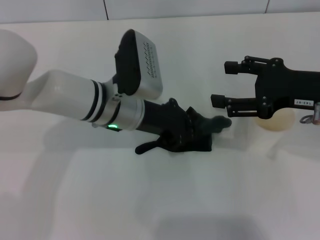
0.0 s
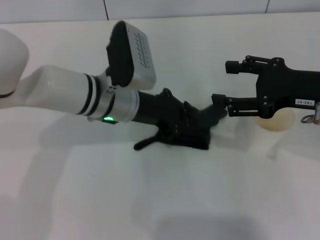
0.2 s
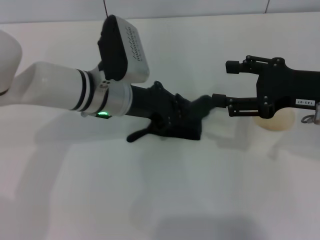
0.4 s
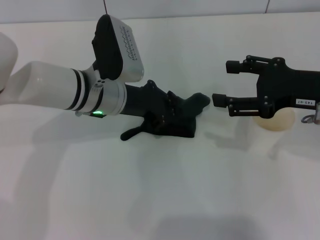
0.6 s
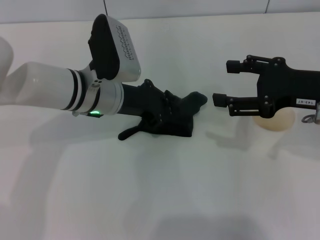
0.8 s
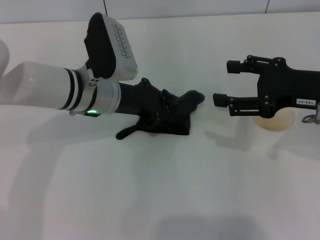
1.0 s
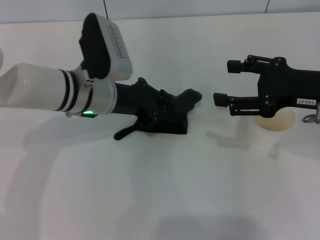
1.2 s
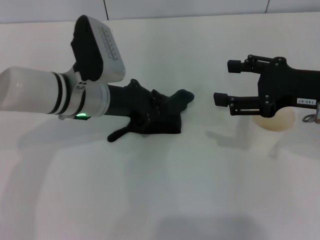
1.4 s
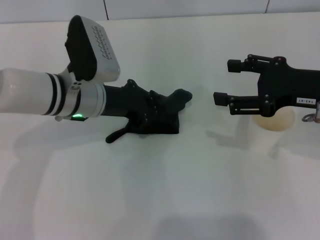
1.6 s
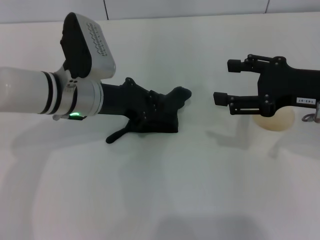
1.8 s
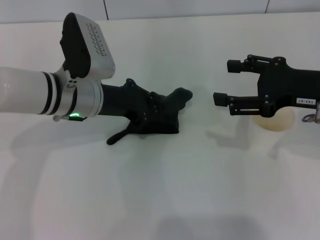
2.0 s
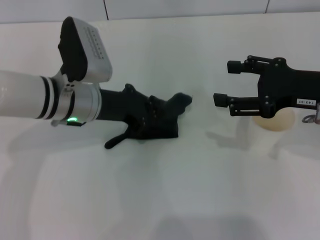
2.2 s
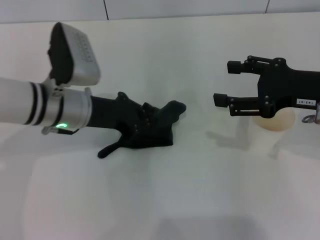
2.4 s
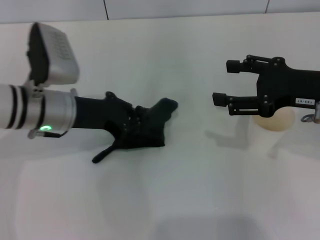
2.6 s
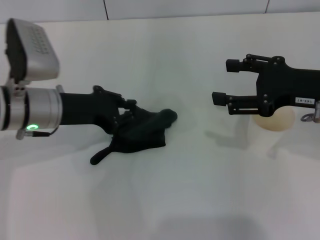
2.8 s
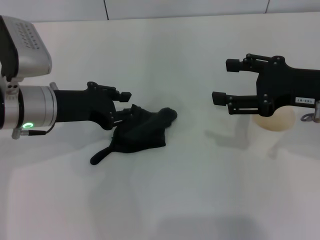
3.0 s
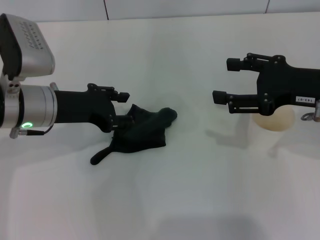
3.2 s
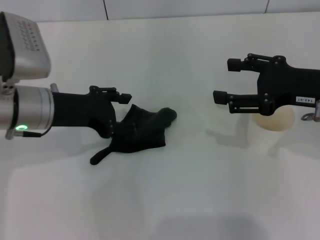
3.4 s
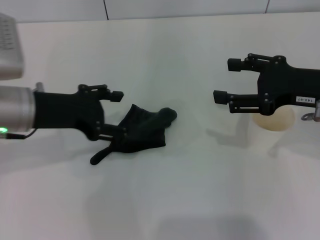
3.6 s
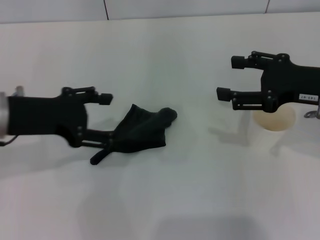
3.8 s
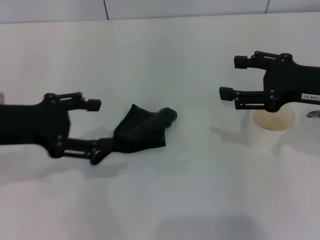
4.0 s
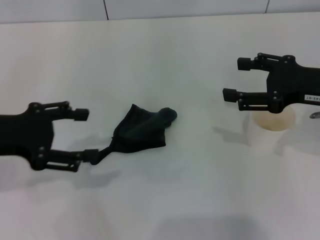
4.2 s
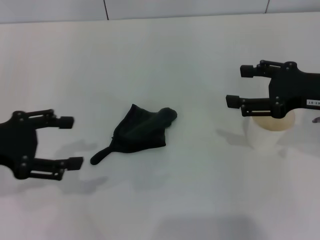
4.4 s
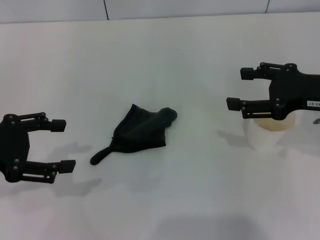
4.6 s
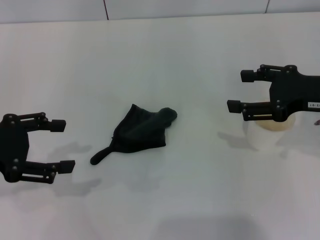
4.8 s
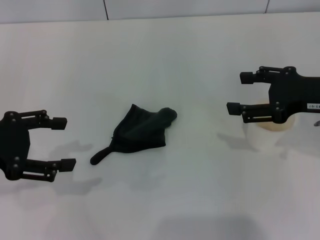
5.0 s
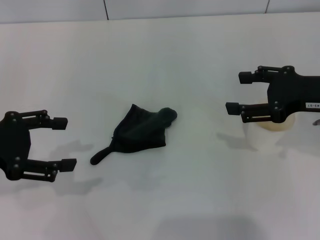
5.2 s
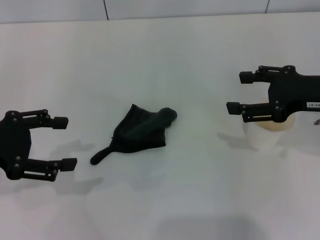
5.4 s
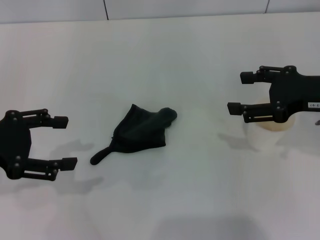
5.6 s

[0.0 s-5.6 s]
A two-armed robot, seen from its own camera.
Step, 0.0 to 2.4 s: Wipe the stains off the table with the left gripper.
Step, 2.6 to 3.6 s: Place the rag on the table with the left gripper.
0.0 to 1.4 s: The left gripper changes place by roughly 5 cm.
1.4 to 2.8 s: The left gripper heads to the left, covering about 5 cm.
2.8 to 4.2 s: The left gripper shifts roughly 10 cm to the left, backward and upward, and opens up.
4.2 to 5.6 s: The grippers move only a little.

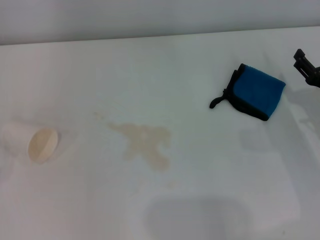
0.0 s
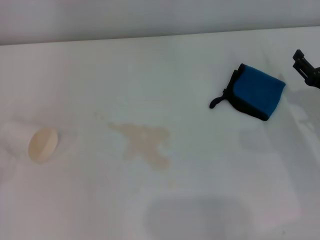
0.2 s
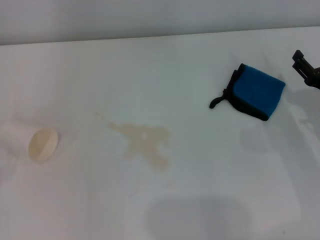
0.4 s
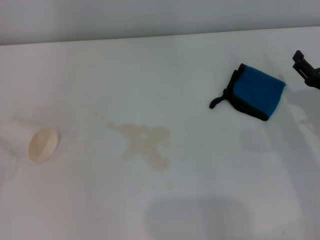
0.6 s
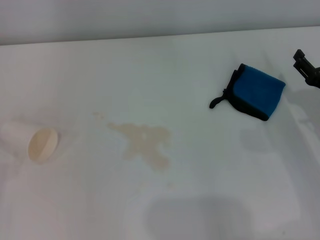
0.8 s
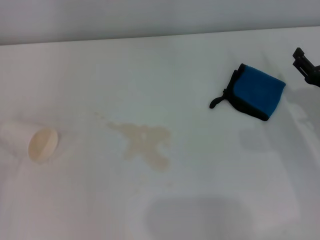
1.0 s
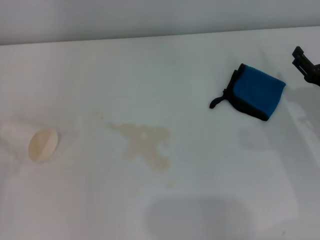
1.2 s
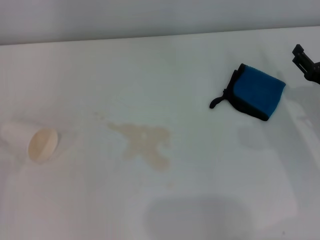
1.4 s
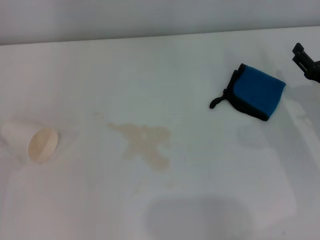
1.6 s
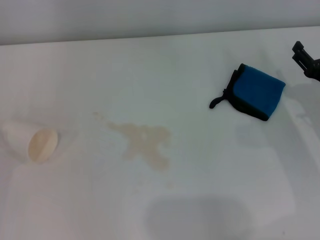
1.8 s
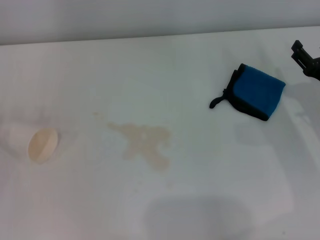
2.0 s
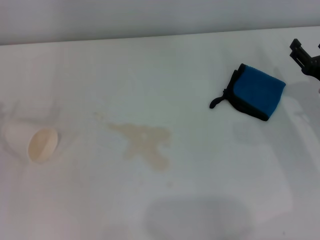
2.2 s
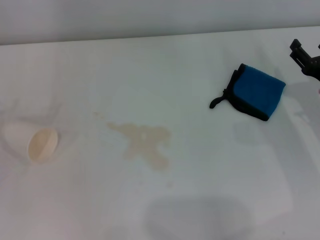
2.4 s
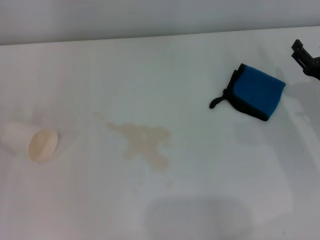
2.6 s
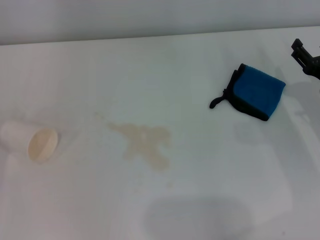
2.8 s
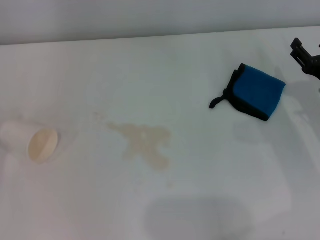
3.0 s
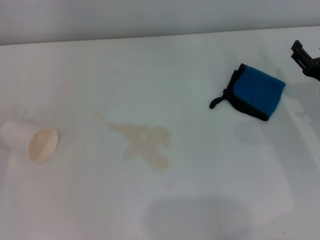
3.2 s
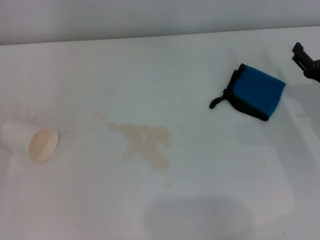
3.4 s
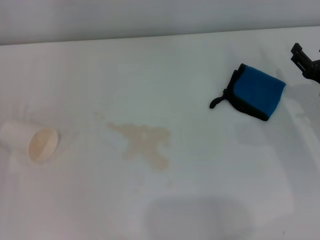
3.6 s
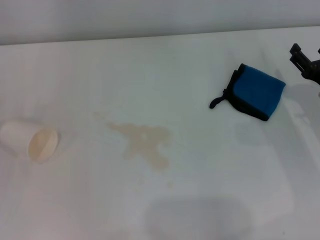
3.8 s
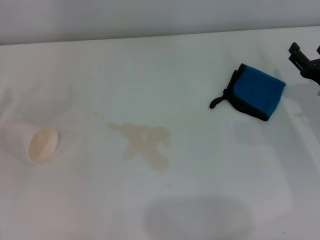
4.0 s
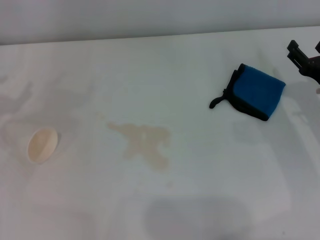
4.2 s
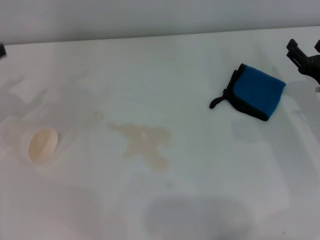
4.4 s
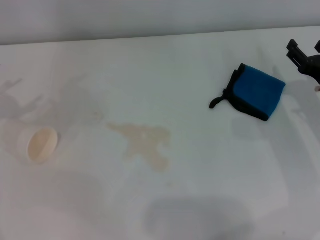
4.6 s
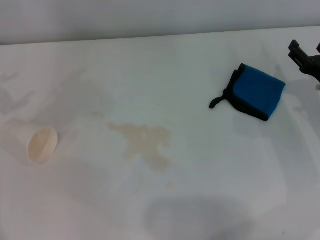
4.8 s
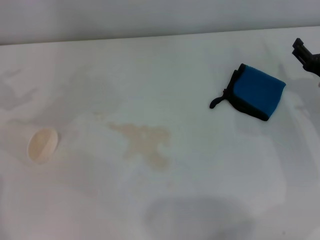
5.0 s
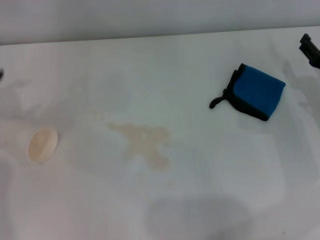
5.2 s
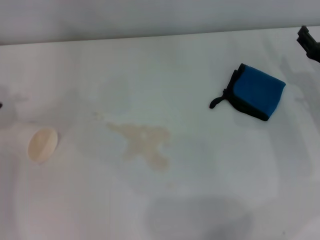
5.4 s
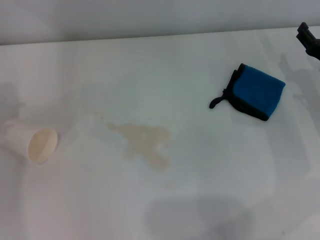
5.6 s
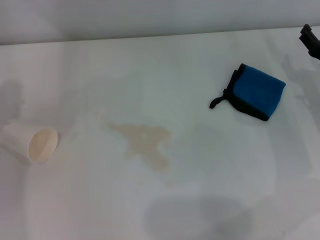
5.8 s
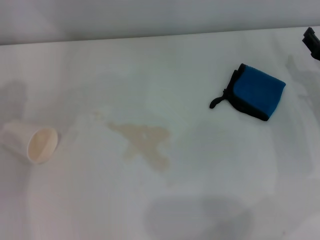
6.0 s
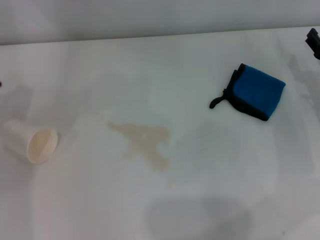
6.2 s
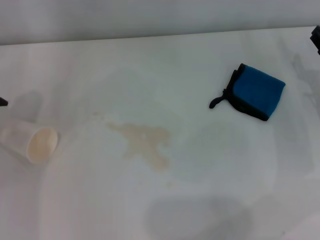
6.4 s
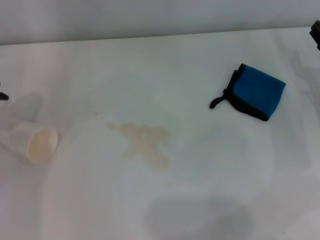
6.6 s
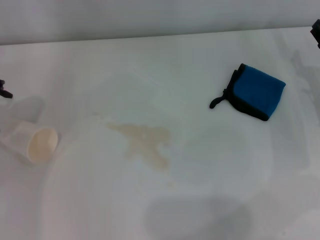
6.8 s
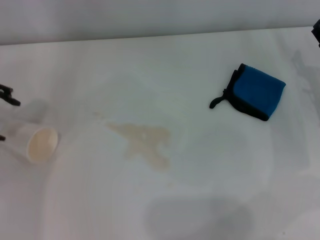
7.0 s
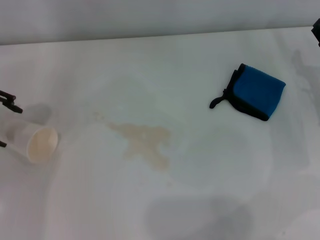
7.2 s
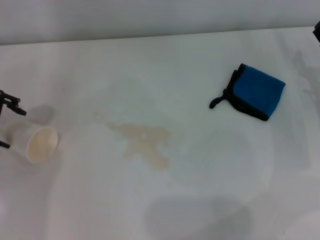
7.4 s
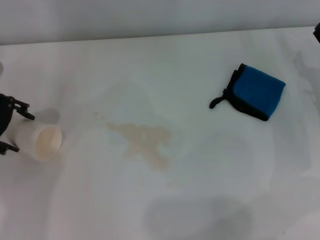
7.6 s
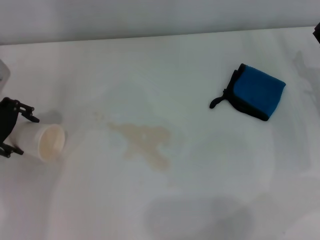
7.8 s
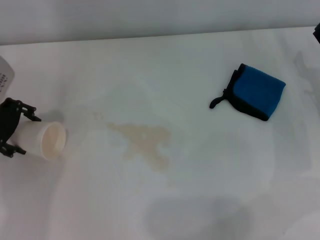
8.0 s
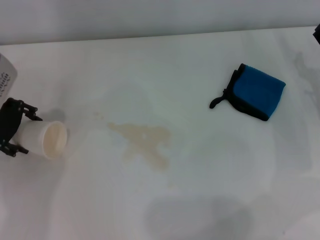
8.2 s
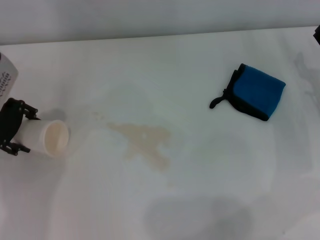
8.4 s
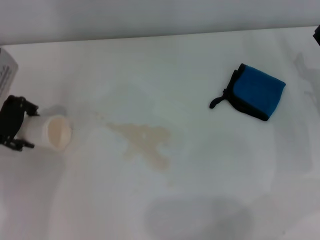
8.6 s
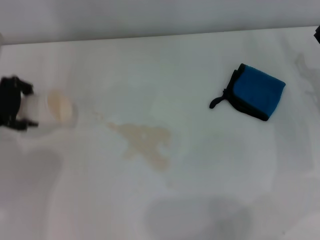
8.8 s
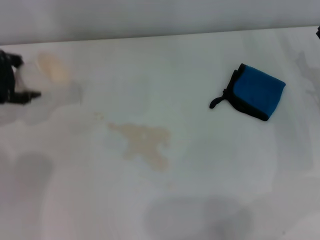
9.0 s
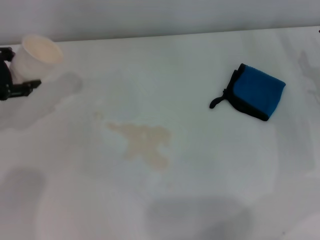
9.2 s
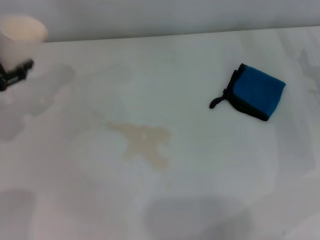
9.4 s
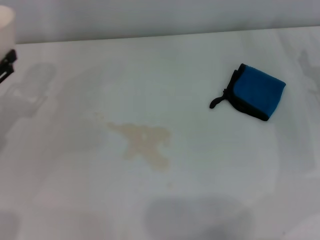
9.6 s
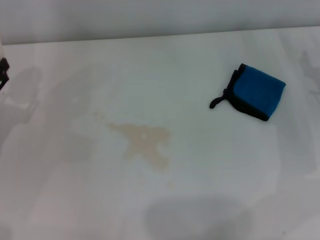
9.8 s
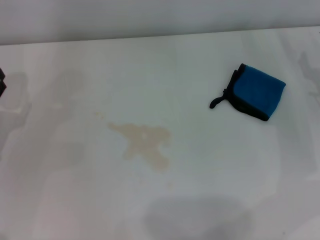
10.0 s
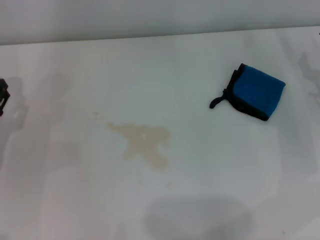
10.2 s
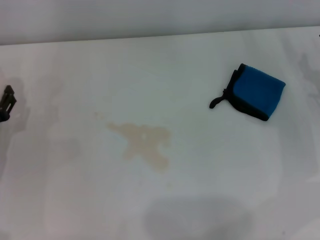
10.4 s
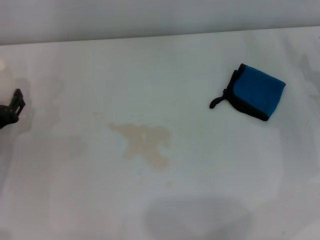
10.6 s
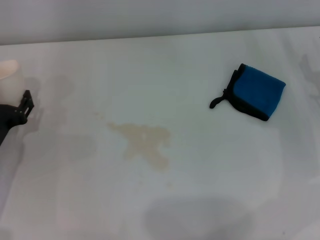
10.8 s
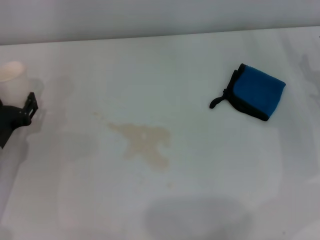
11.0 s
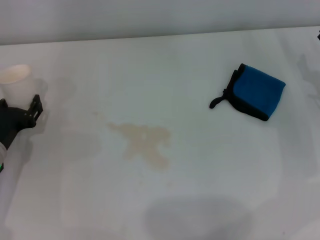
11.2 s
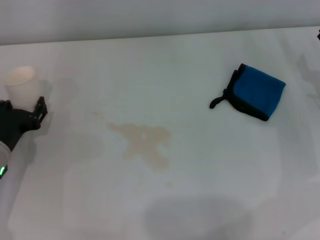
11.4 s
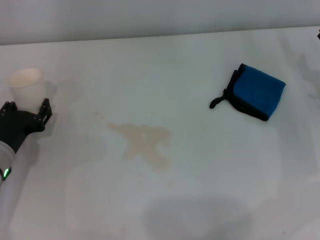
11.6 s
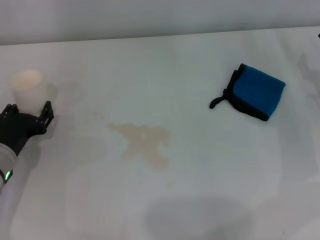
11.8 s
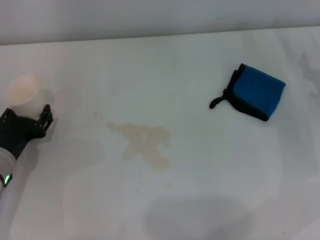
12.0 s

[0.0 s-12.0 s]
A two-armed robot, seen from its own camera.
Step, 0.0 to 8.4 s: Grasp the paper cup with the left gripper.
6.0 to 7.6 s: The left gripper shifts about 10 cm downward and to the right.
7.6 to 9.0 s: The left gripper closes up.
9.0 to 10.4 s: The left gripper moves downward and backward, about 20 cm.
10.4 to 12.0 s: There are only small adjustments of the grippers.

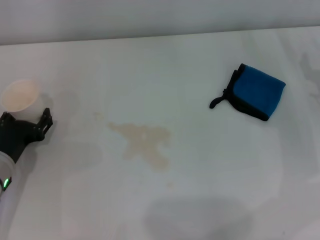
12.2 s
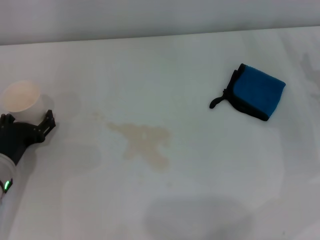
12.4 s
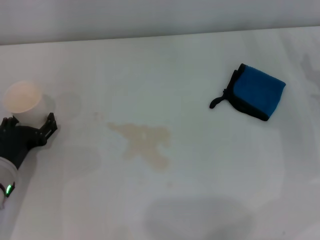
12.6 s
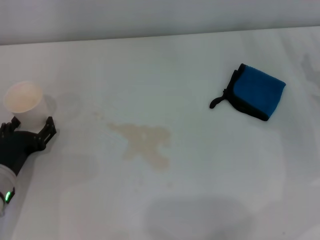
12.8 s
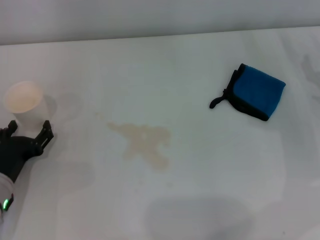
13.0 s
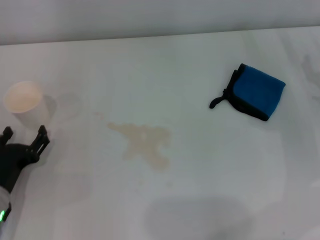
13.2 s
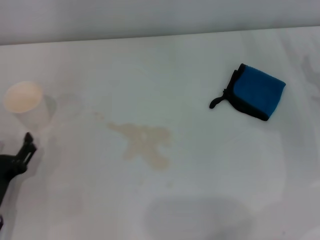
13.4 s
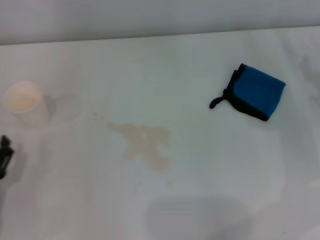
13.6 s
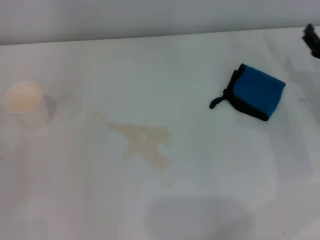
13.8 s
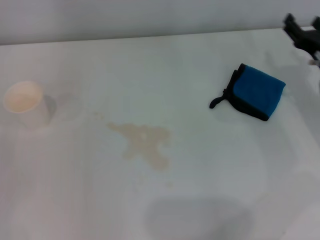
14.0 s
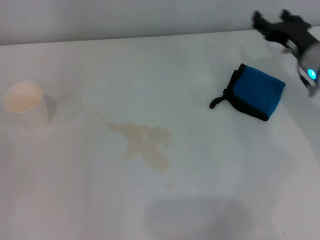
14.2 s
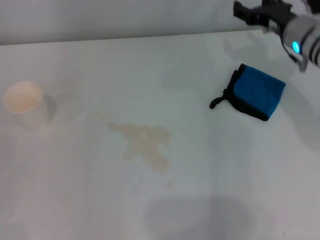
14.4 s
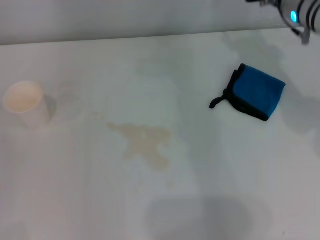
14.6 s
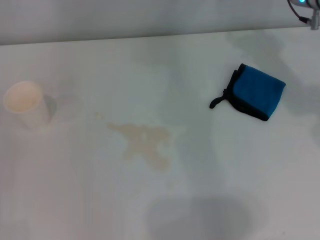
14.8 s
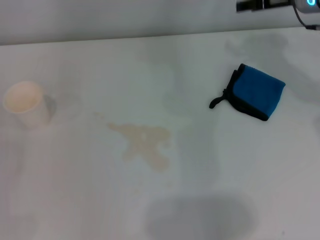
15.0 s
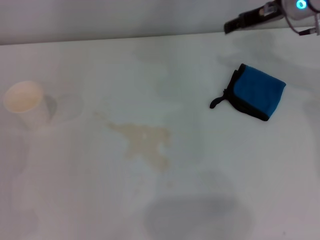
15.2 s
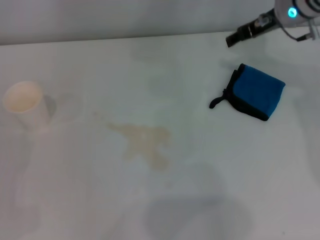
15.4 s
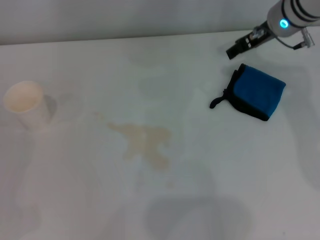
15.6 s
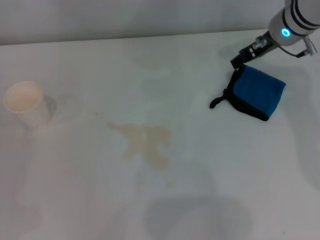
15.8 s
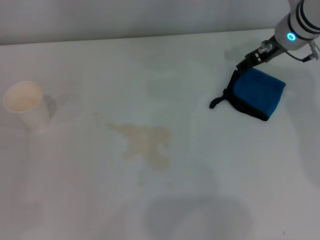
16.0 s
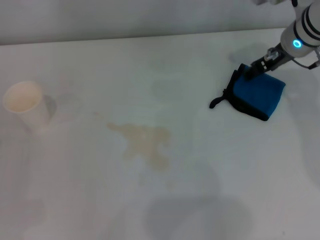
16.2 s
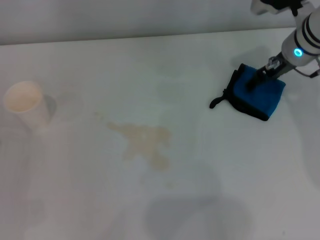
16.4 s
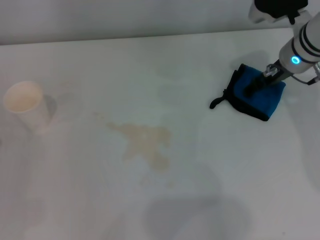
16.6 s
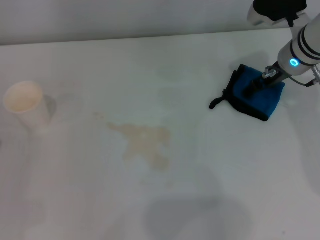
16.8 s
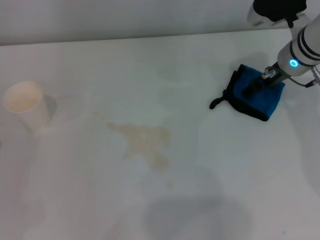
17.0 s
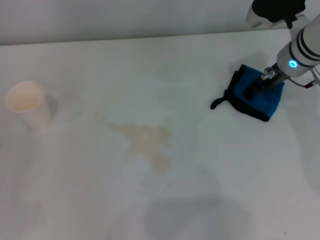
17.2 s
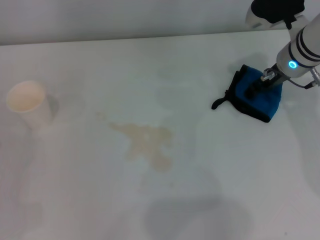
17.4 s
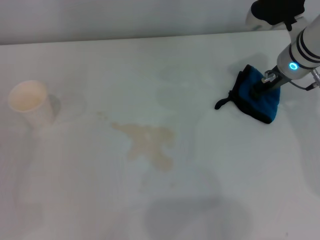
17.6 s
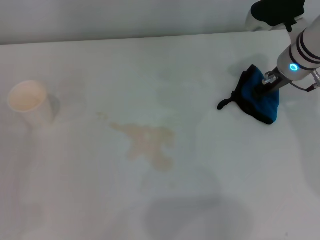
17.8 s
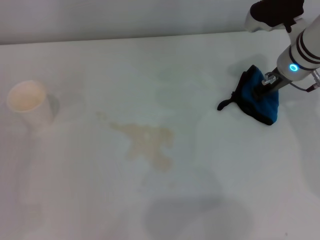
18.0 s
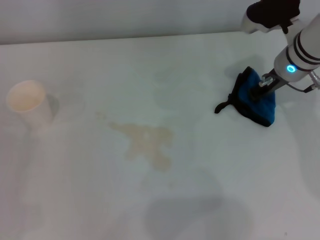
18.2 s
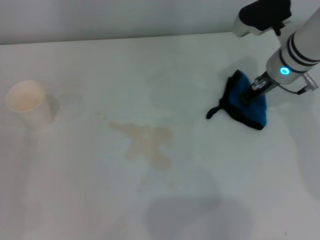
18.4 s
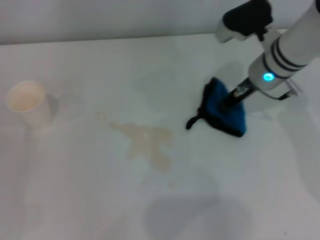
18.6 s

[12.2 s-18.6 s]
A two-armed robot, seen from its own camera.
Step, 12.4 to 17.8 s: Grasp the rag with the right gripper.
12.2 to 13.8 s: The left gripper heads backward and to the left, covering approximately 15 cm, and opens.
13.8 to 15.4 s: The right gripper is displaced forward, upward and to the left by about 20 cm.
15.4 to 17.0 s: The right gripper goes some 5 cm downward.
17.0 to 18.6 s: The right gripper closes its fingers.
